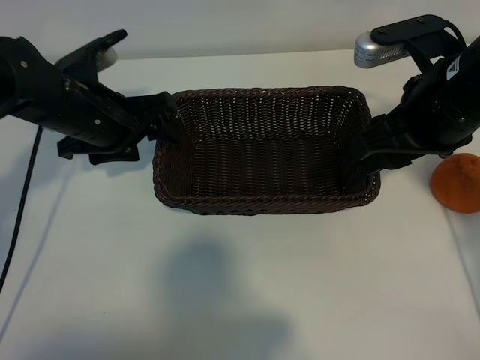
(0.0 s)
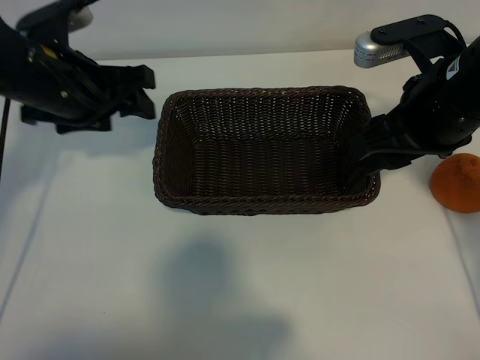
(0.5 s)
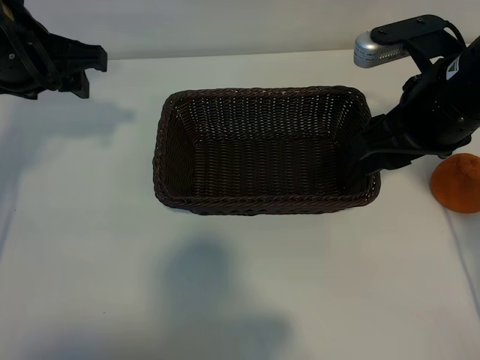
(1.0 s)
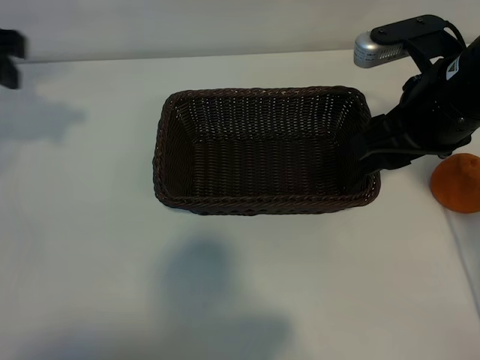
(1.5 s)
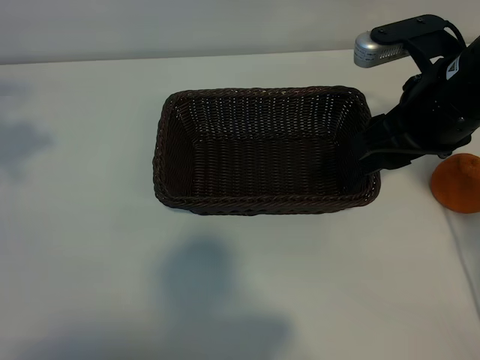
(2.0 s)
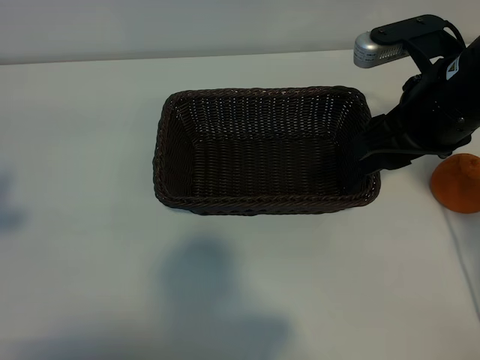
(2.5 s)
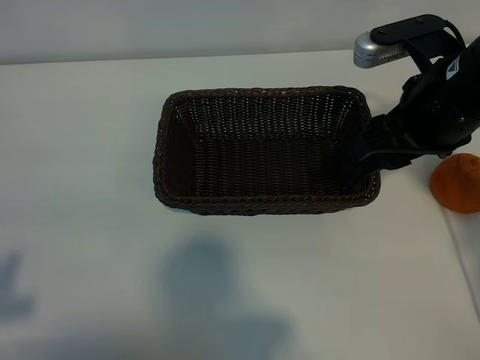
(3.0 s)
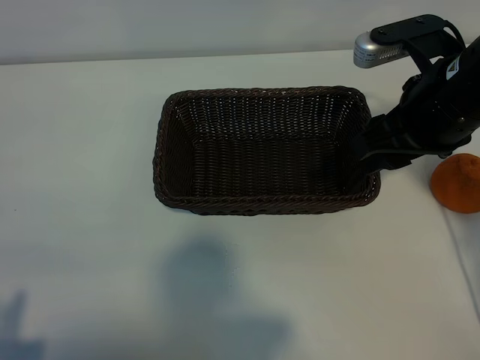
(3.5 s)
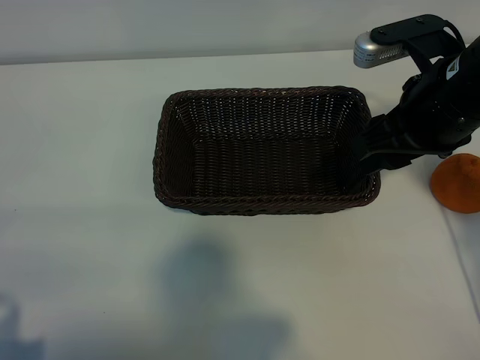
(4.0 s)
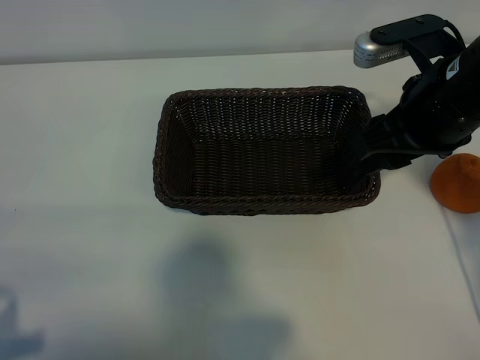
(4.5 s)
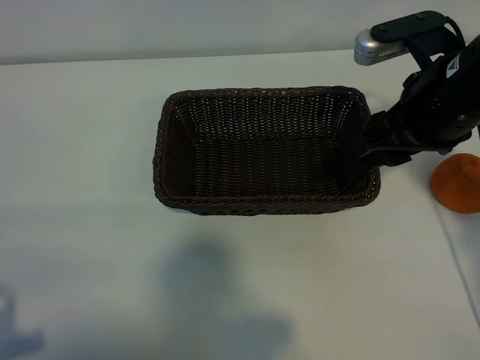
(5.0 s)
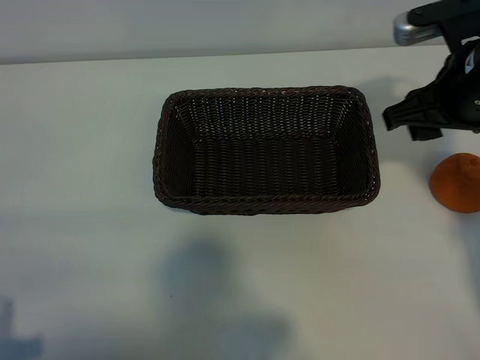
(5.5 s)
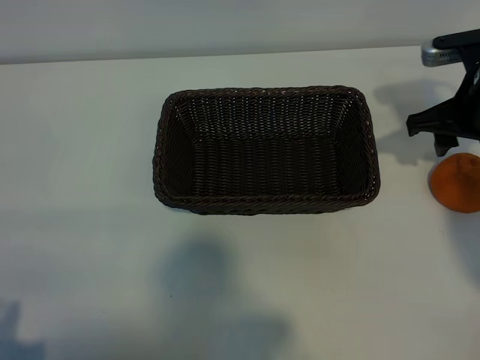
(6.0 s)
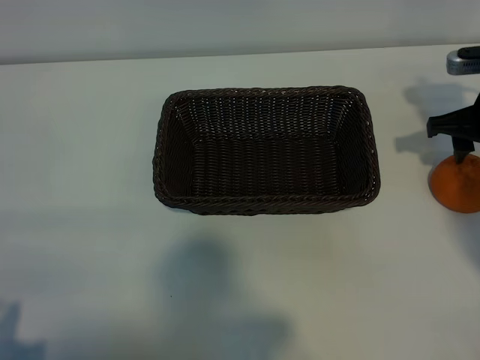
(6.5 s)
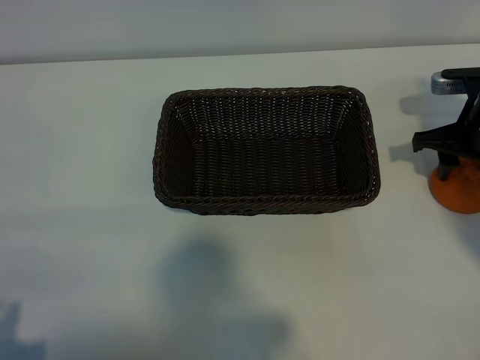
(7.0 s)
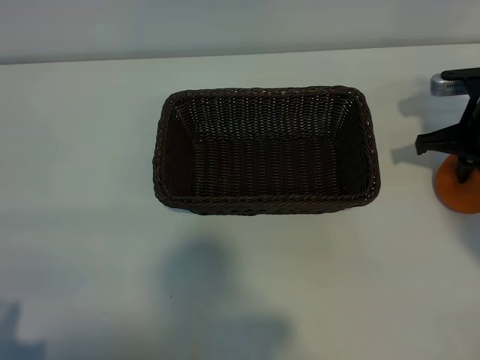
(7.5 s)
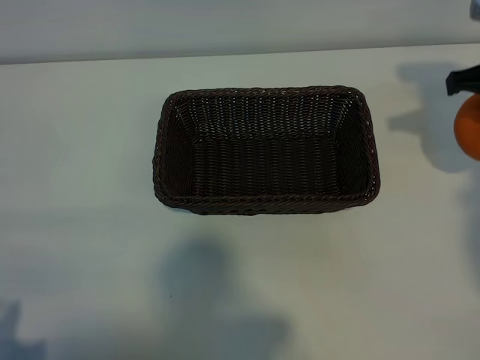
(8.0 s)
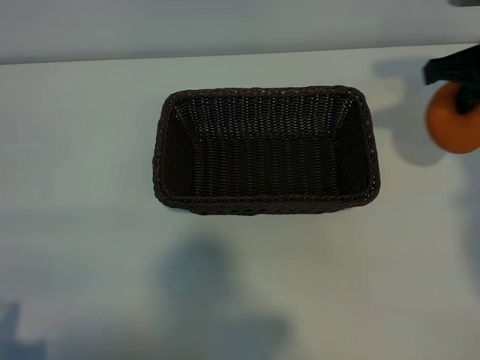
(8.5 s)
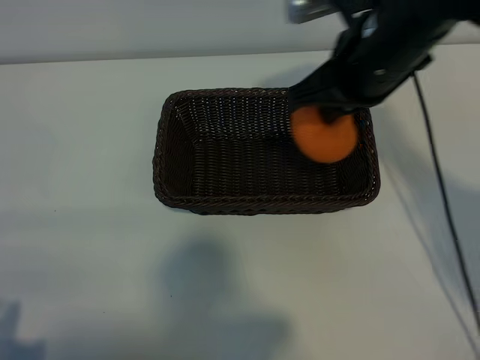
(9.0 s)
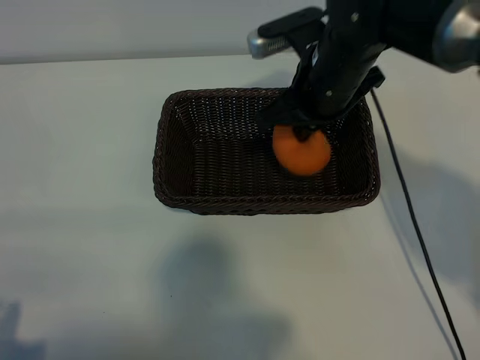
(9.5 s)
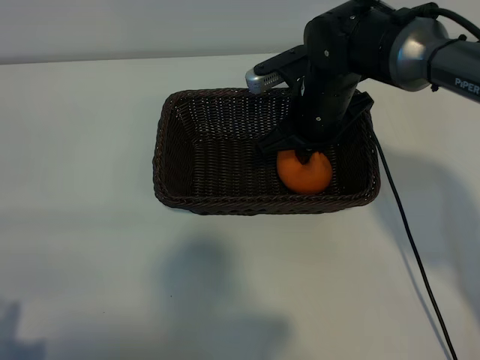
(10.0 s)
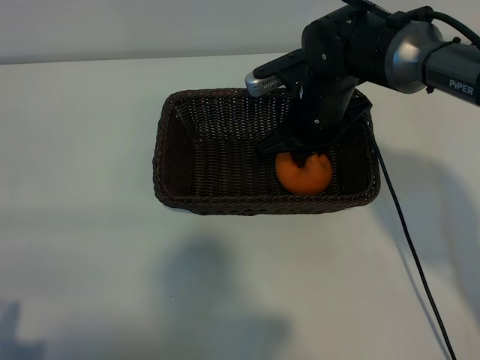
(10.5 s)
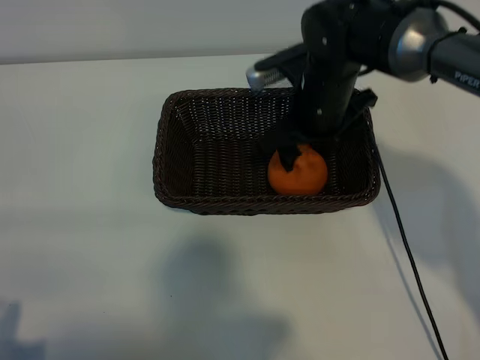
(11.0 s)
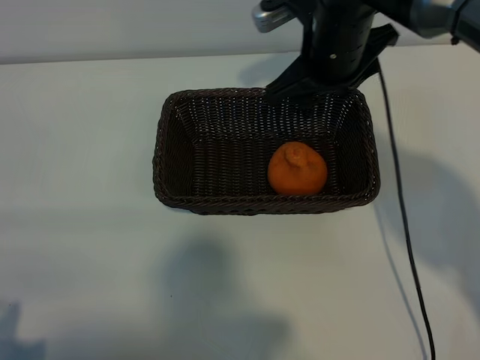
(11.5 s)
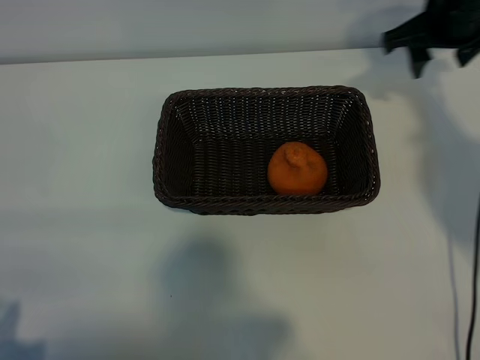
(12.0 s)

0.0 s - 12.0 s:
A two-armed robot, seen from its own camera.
Task of the whole recording: pick up the orange and put it into the basket.
Step, 0.0 s - 7.0 s: Grasp the orange with right gripper.
Step, 7.5 s - 10.5 s: Place the orange in the basket with right gripper.
